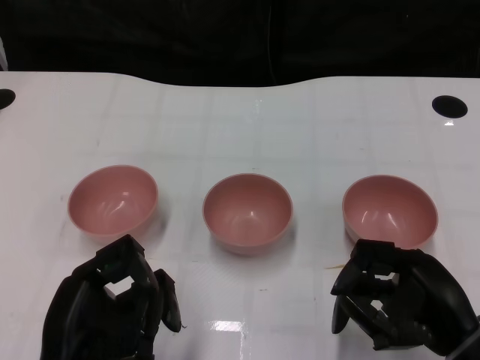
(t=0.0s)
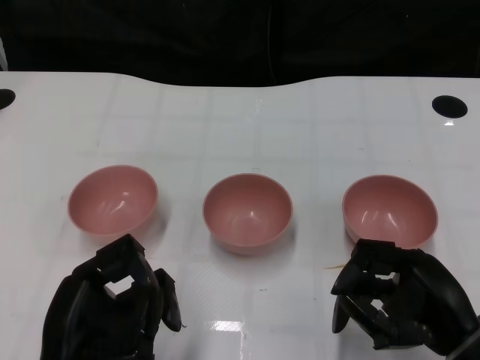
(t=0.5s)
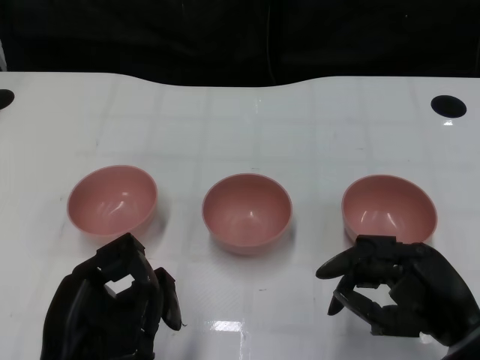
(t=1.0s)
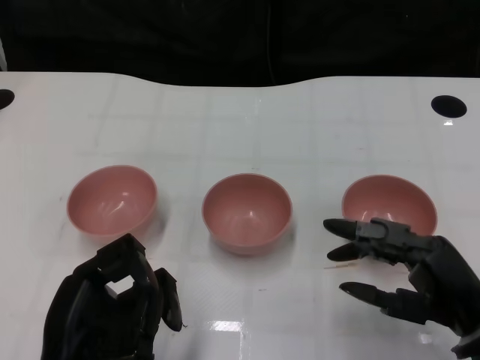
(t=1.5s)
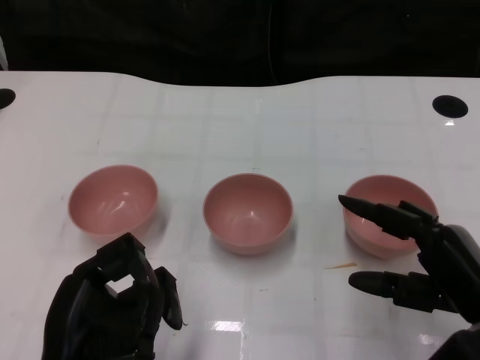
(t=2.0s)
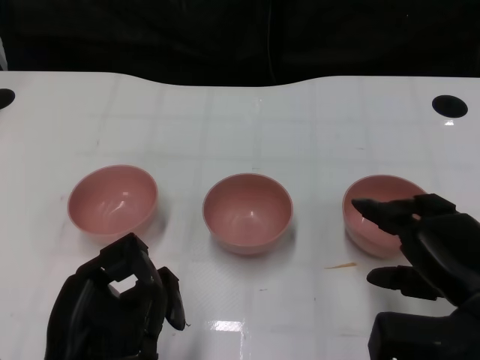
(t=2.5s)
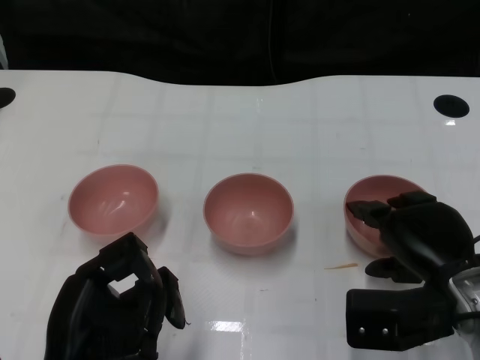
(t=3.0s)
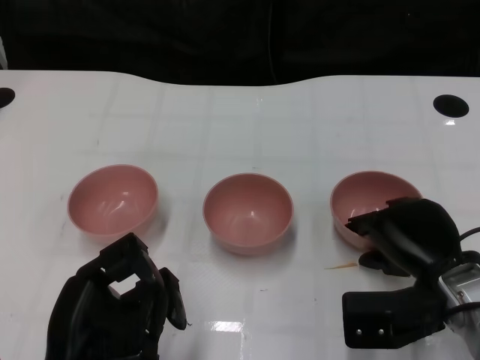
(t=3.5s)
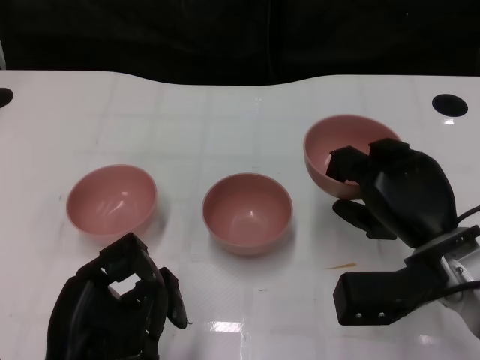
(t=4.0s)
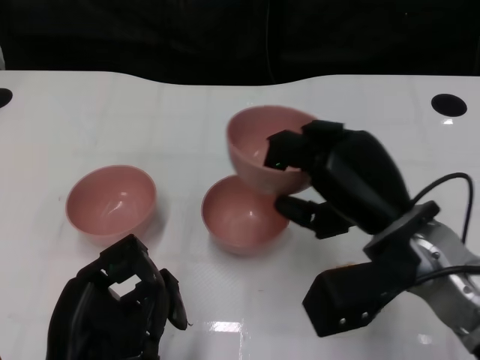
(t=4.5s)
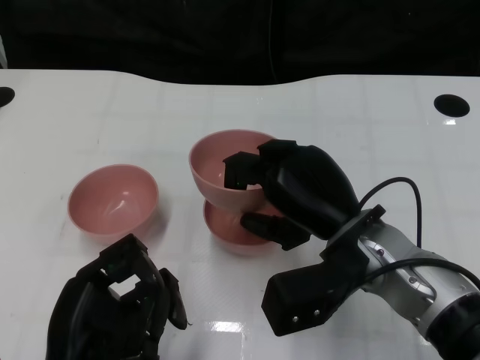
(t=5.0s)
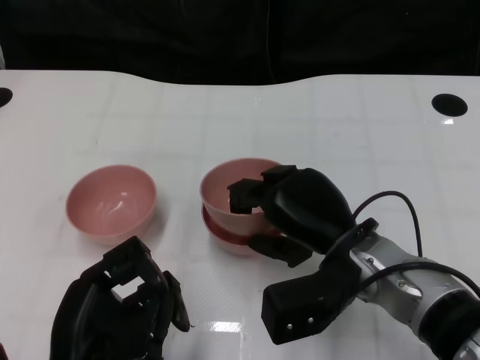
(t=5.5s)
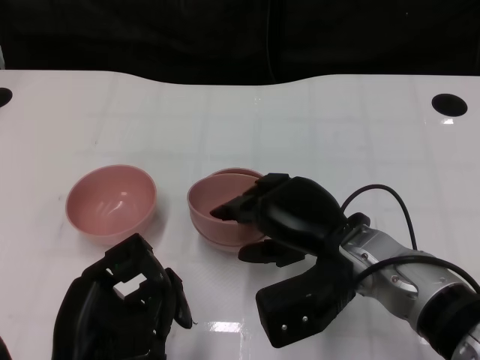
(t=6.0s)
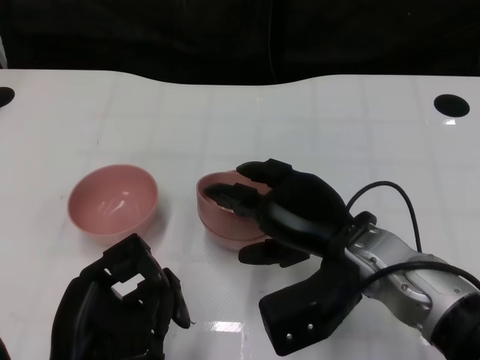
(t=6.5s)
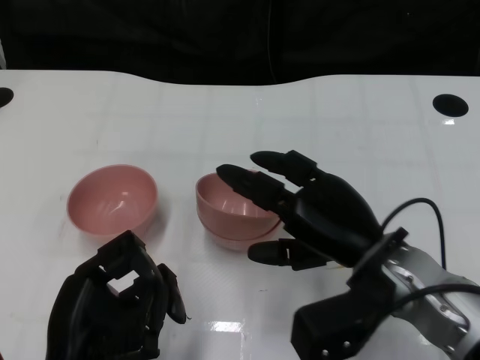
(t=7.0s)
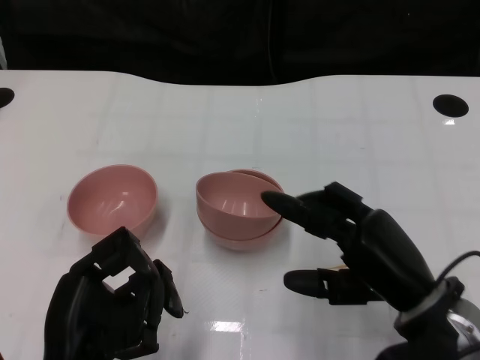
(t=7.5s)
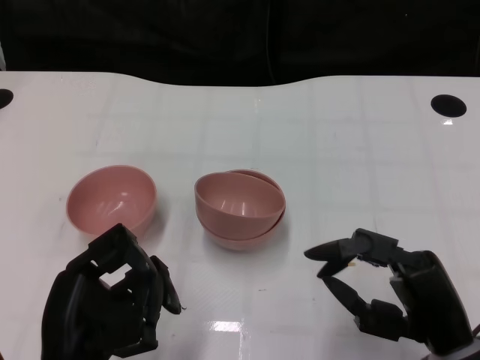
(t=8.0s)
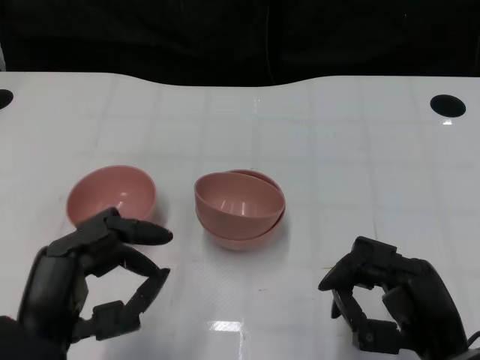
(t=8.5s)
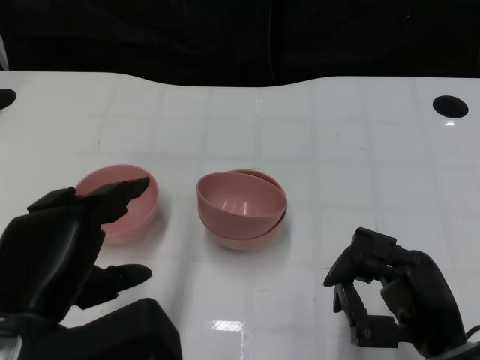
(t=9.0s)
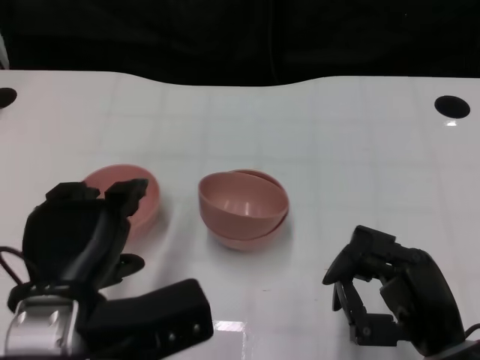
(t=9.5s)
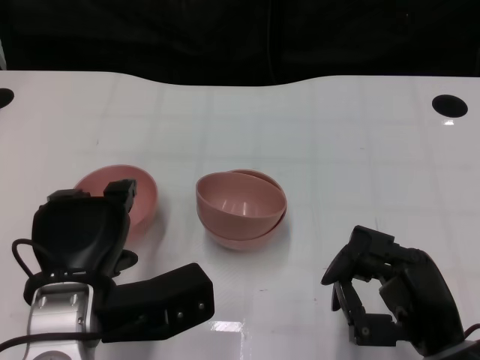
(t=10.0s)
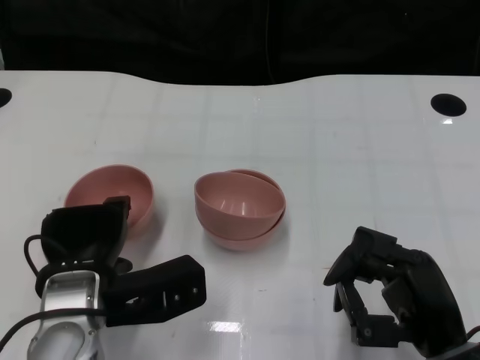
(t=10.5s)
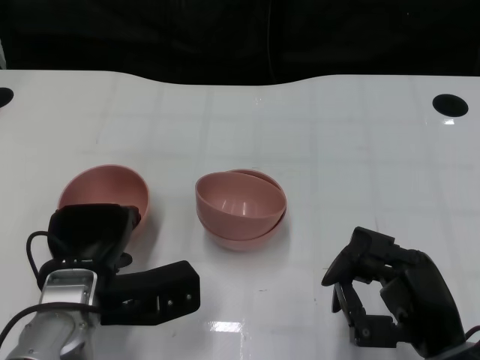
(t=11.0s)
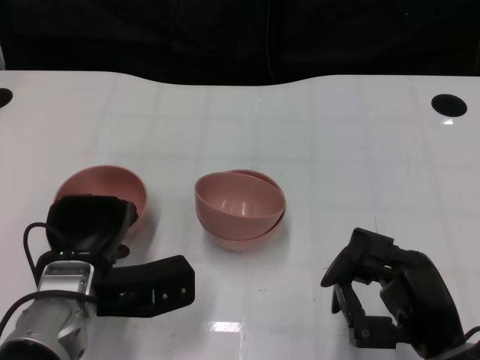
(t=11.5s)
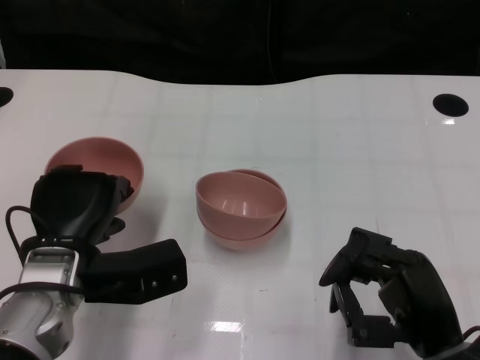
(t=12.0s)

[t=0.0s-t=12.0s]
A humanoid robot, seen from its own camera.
Task of the whole recording: Pick up the bowl on one side of the table and place it on top of the middle bowl, then pick up the bowl on the other side of the table and place it on top of the middle bowls.
Step, t=1.0s to t=3.5s: Grasp the bowl on the right with the right gripper.
Step, t=4.0s to t=7.0s: Place the bowl on the right onto the bowl in the middle with right gripper.
Step, t=7.5s to t=11.5s: Grasp the bowl on the left with the left gripper.
t=2.0s to t=4.0s: The right hand heads forward, covering about 5 cm.
t=4.0s to t=6.0s: The right hand moves to the left, approximately 10 cm.
t=6.0s to t=8.0s: The right hand is displaced backward and to the right by about 15 cm.
t=8.0s to t=10.0s: The left hand heads forward, covering roughly 5 cm.
t=10.0s to t=12.0s: The left hand shifts about 5 cm forward.

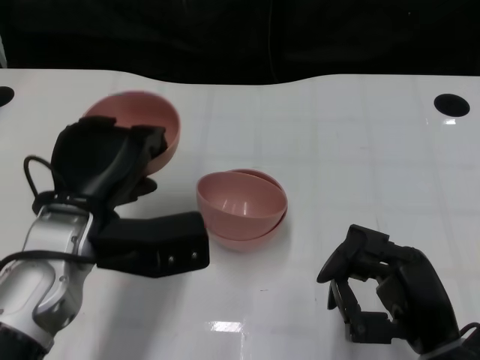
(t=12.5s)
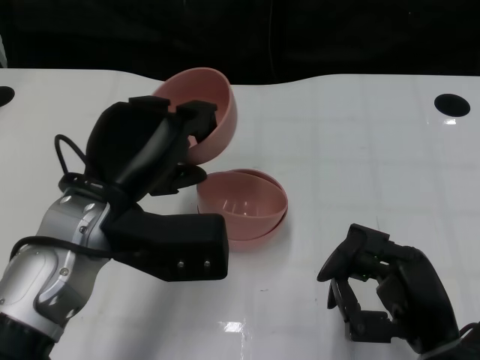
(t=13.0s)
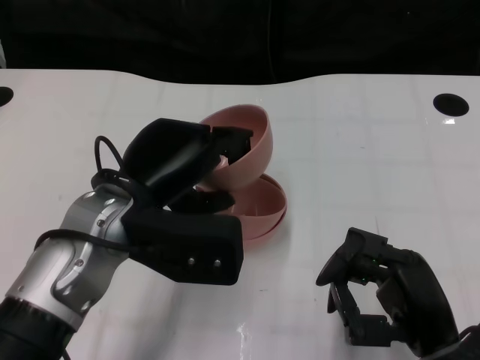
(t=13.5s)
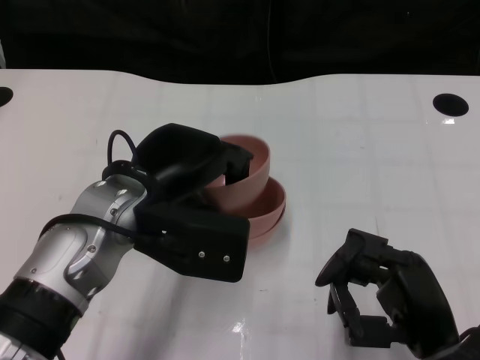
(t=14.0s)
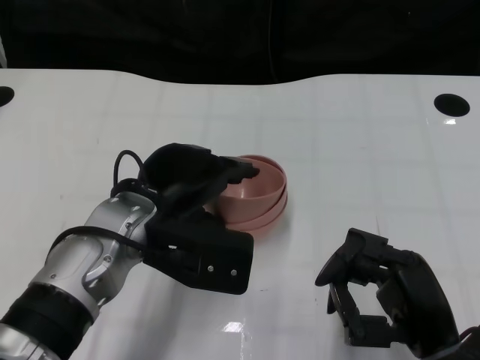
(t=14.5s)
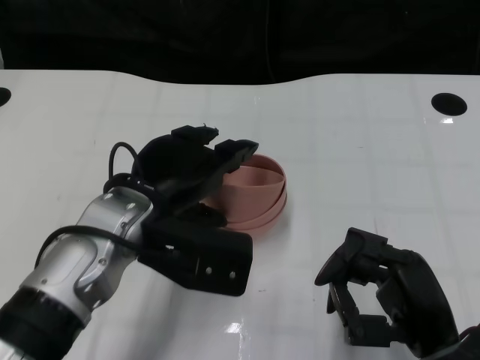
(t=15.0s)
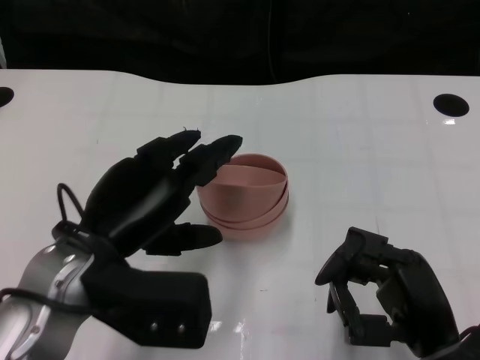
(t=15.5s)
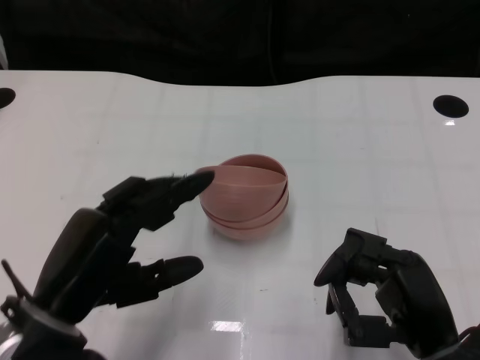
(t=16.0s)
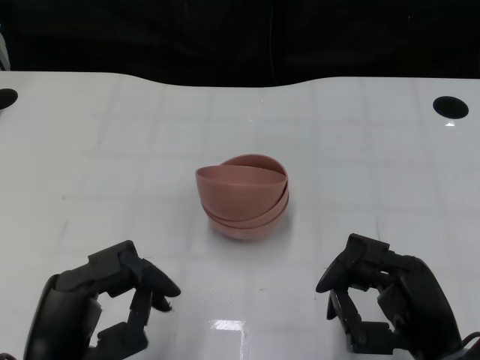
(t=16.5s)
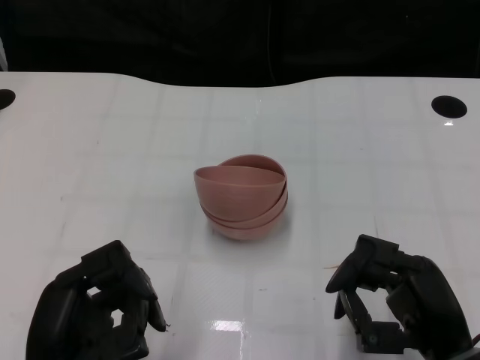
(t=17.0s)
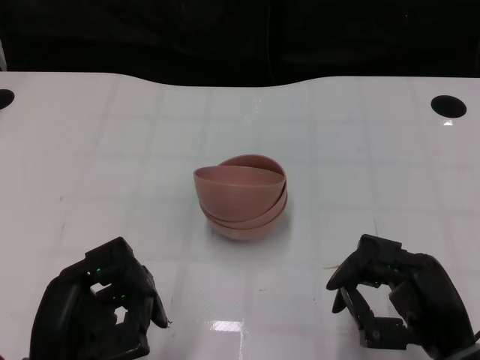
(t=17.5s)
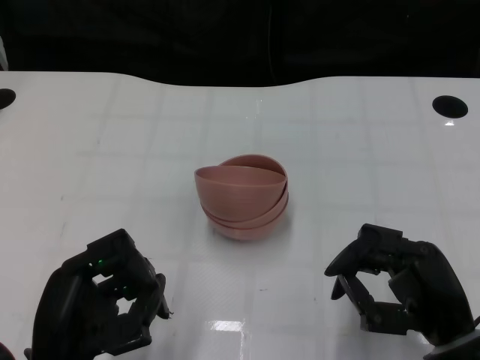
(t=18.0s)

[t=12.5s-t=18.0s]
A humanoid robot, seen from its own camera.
Task of the whole recording: Pick up the bowl on one side of the table and place it on top of the middle bowl, then pick up the bowl on the other side of the table and place it on top of the middle bowls.
Step, t=12.5s to t=15.5s: Place the bowl on the left onto the bowl in the middle with left gripper.
t=12.5s to t=14.5s: The left hand goes some 5 cm to the right.
t=14.5s to t=16.0s: The left hand shifts about 15 cm backward and to the left.
t=16.0s to t=18.0s: The left hand moves some 5 cm.
